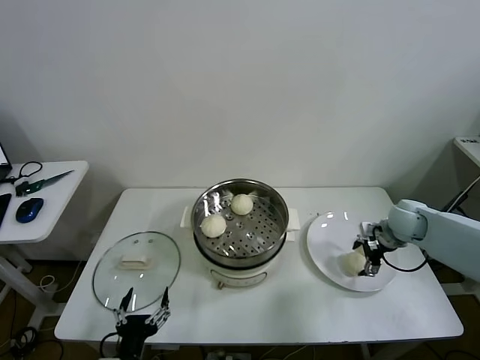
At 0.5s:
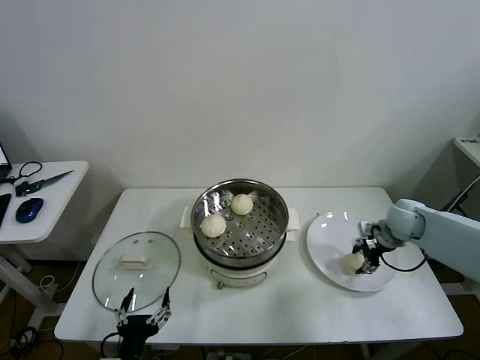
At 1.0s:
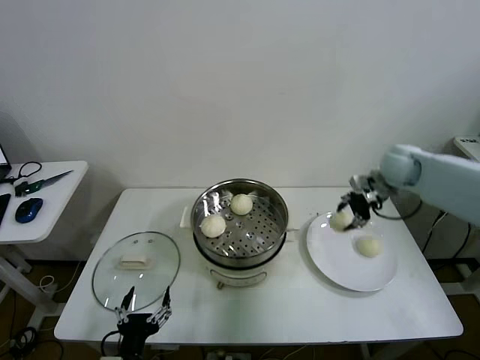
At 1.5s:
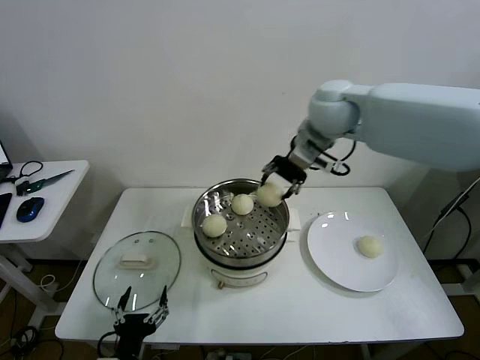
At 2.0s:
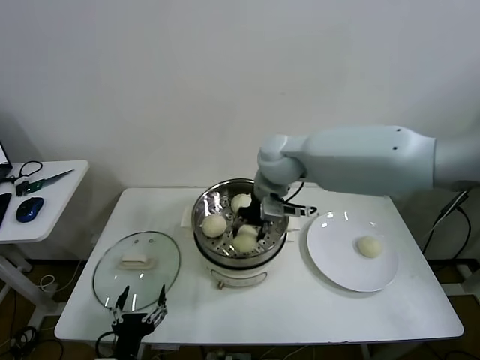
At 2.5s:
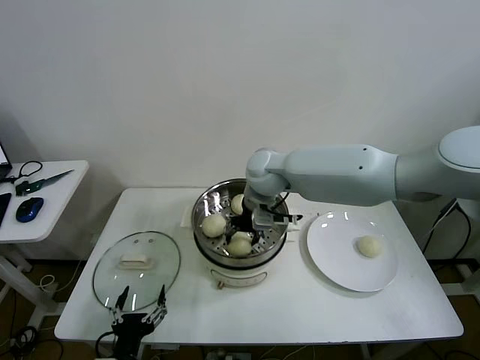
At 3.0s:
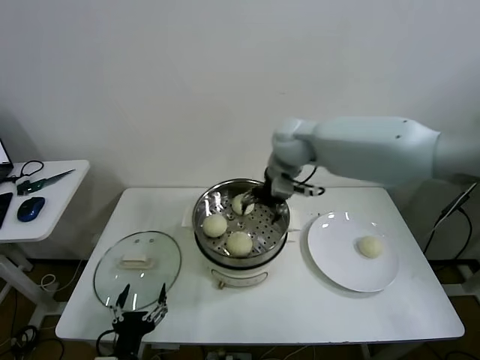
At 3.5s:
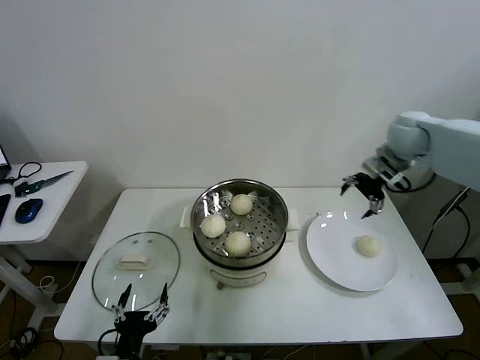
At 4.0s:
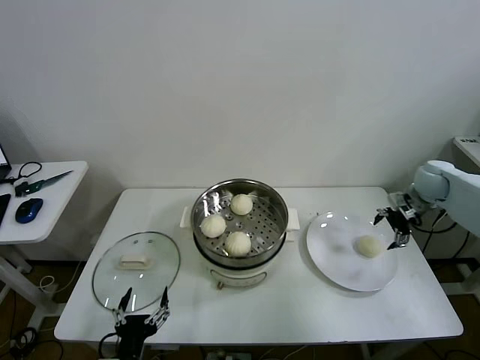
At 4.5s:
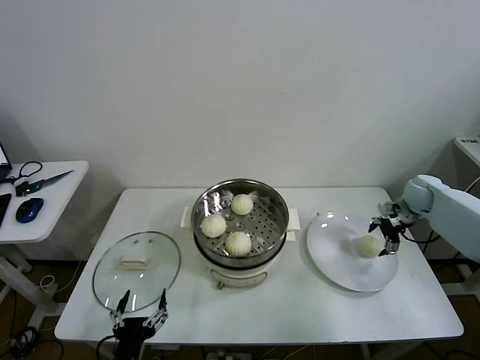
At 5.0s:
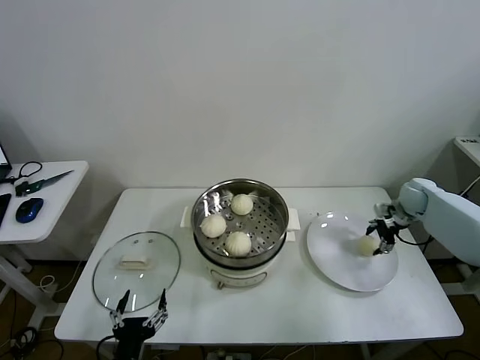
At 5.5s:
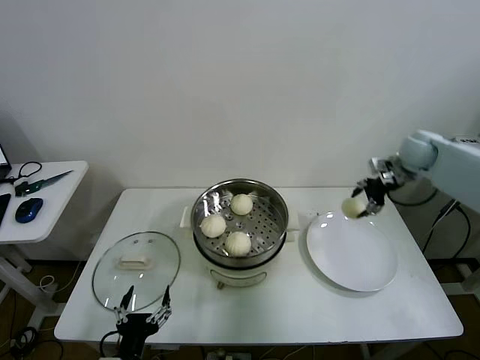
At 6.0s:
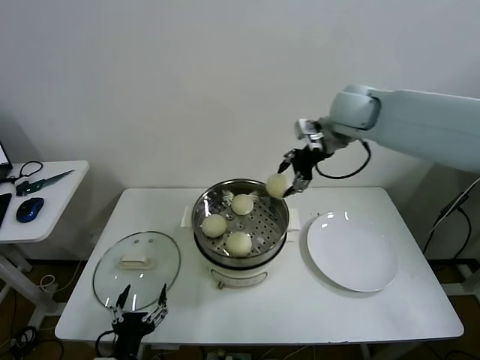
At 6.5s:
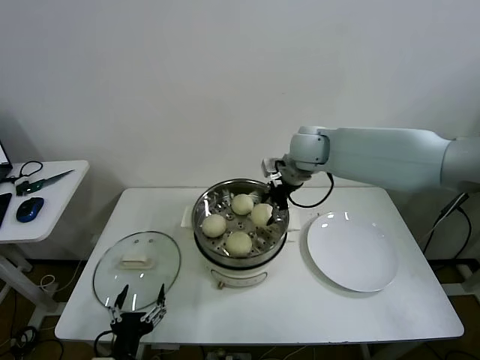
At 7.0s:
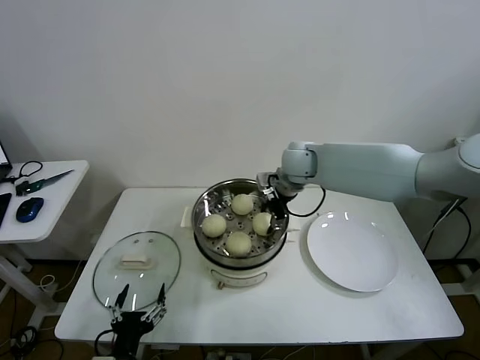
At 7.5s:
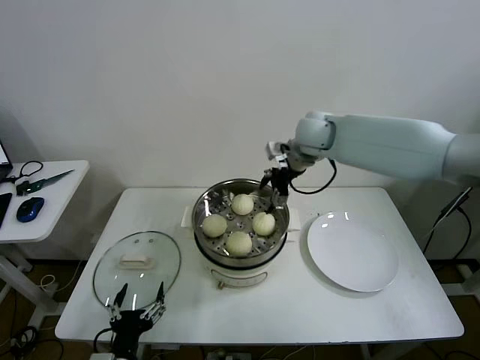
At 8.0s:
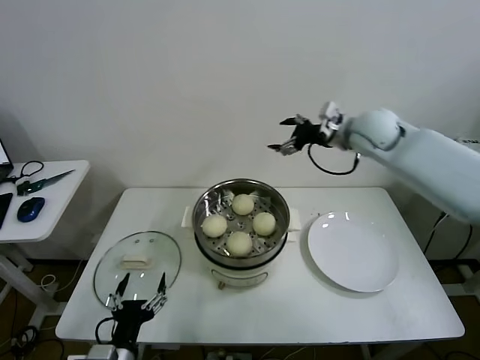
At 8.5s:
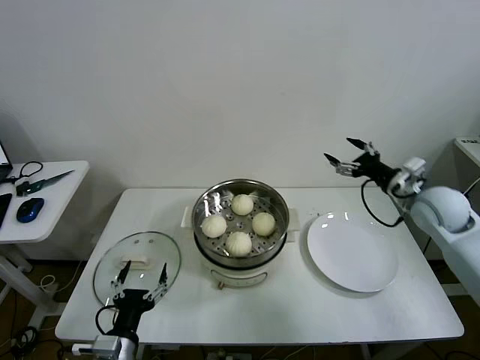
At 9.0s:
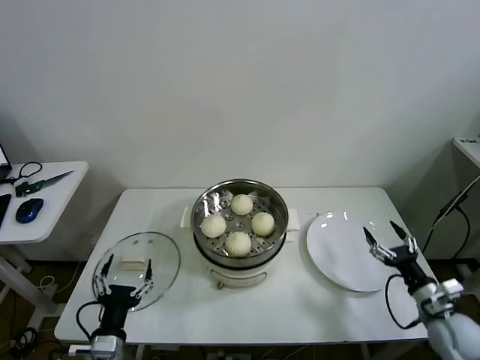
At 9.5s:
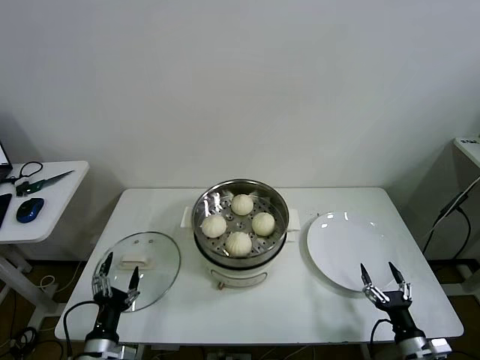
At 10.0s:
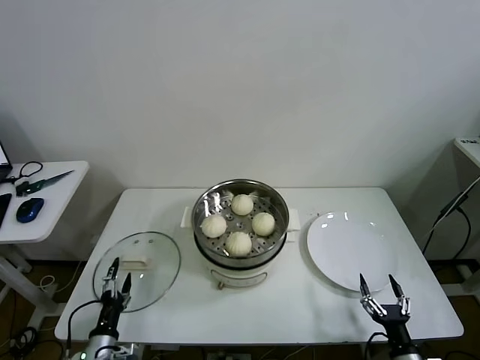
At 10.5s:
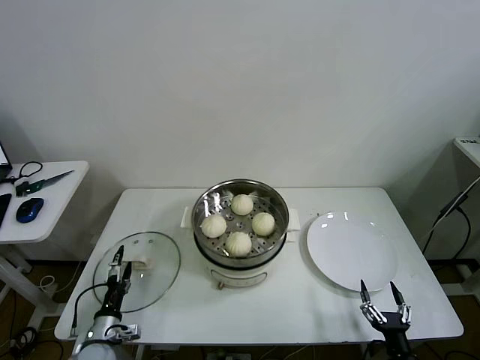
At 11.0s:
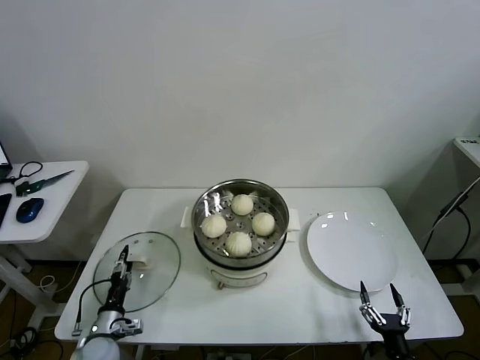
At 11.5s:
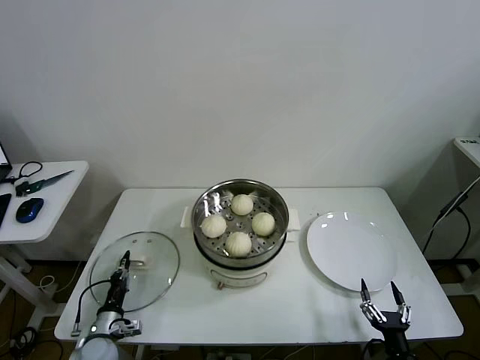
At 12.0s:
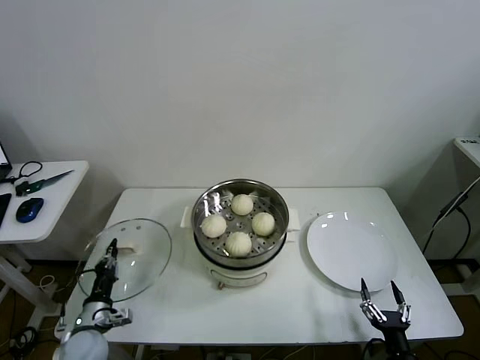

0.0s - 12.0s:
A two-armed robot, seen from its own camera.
Task of the whole recording: take steamed baozi put them in steamer then cover it.
Step, 0.5s - 2.5s: Place the baozi on the steamer with right gripper.
Step, 3.0s - 4.5s: Grasp the baozi in the plate with right gripper.
Step, 5.0s - 7.0s: Place the baozi on the steamer with right gripper.
Step, 7.5s - 11.5s: Grasp the pot lid with left gripper.
0.0s - 2.0s: The right gripper goes approximately 40 cm to the left and upward, and closes its fingers.
2.0s - 4.0s: The right gripper moves to the right, some 40 cm, and opens.
4.0s - 6.0s: The right gripper travels to the left and upward by some 30 cm, and closes up.
6.0s - 8.0s: The right gripper travels to the right and downward by approximately 10 cm, and opens its fingers.
8.0s - 10.0s: The right gripper heads backward and downward, covering roughly 60 cm; the left gripper shifts approximately 15 cm downward and to the left.
10.0s - 12.0s: The left gripper moves forward, roughly 5 cm, and closes up.

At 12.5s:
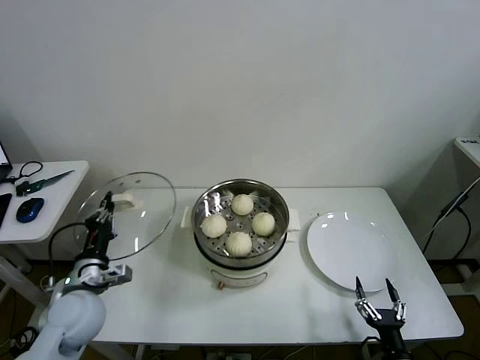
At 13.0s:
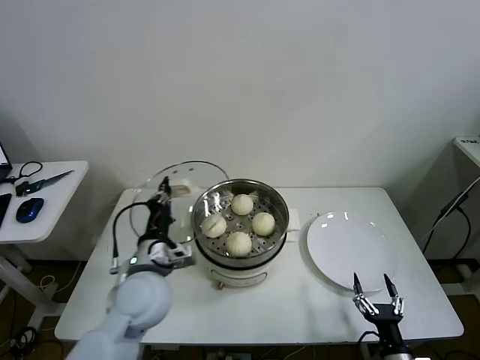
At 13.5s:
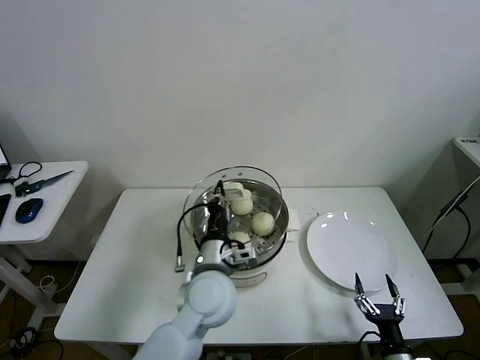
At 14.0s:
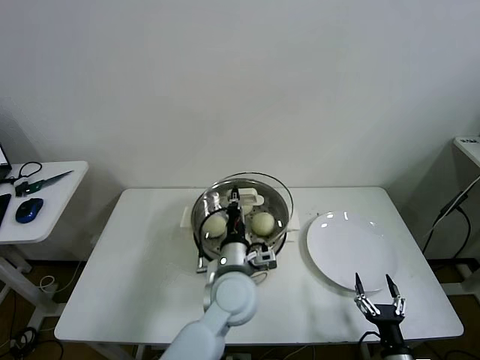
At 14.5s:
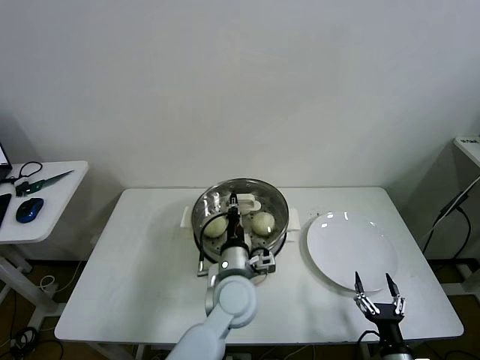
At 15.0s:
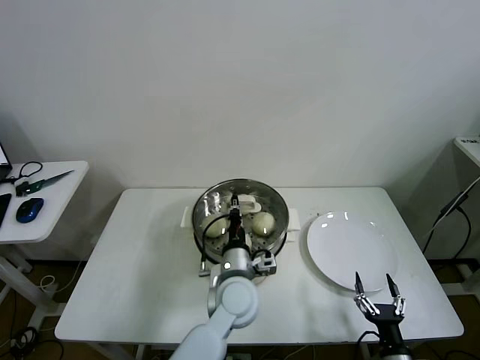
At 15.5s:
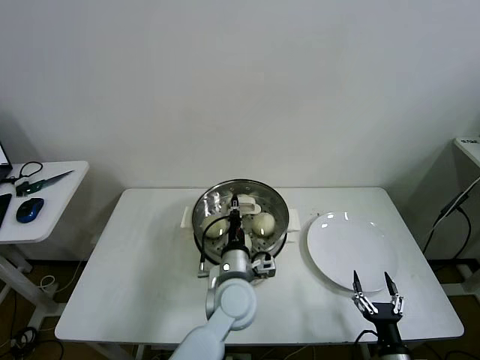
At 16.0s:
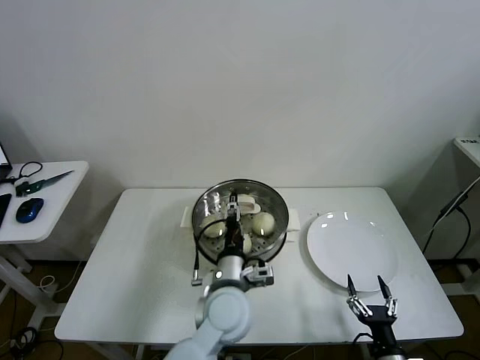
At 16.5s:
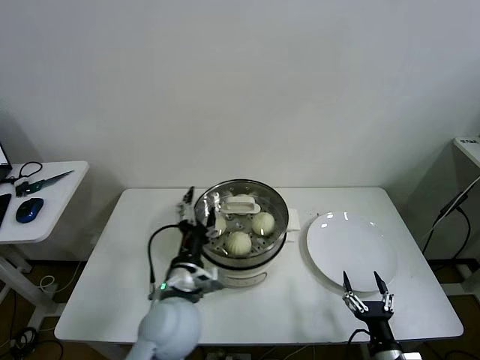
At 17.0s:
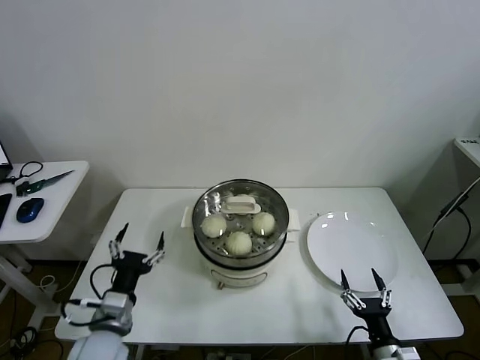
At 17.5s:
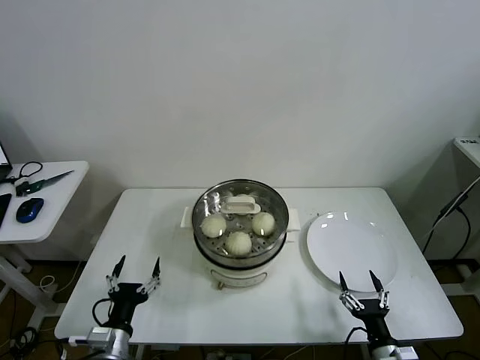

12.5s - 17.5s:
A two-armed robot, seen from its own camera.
Task of the whole recording: take steamed baozi put them in steamer then cover it.
Step, 12.5s - 16.0s: Place the pot lid on the steamer with left gripper.
12.5s - 15.0s: The left gripper shifts about 30 cm to the right.
15.0s - 17.5s: The left gripper moves to the left and backward, roughly 30 cm, and opens its fingers.
